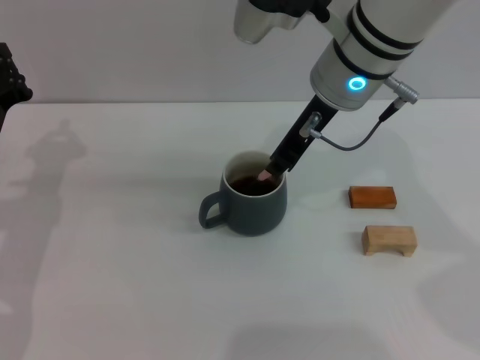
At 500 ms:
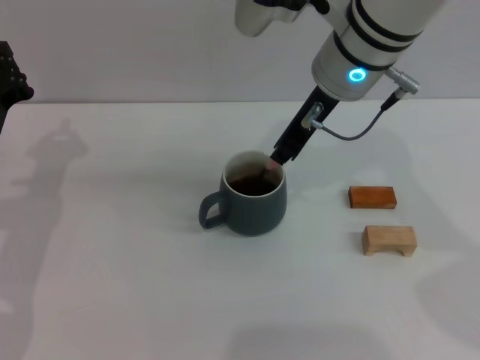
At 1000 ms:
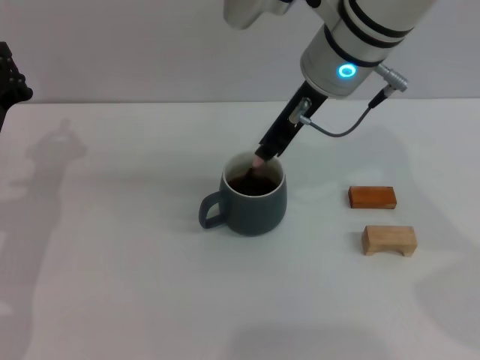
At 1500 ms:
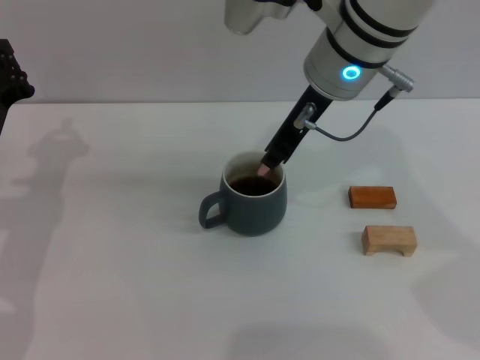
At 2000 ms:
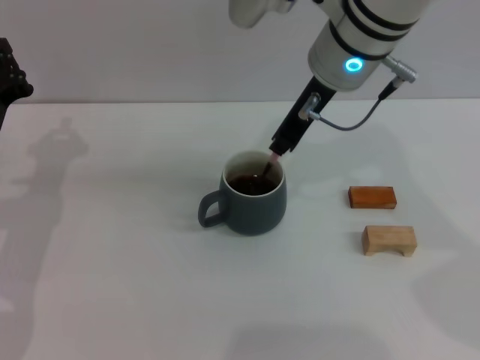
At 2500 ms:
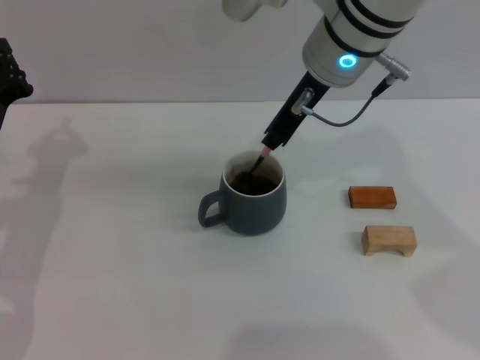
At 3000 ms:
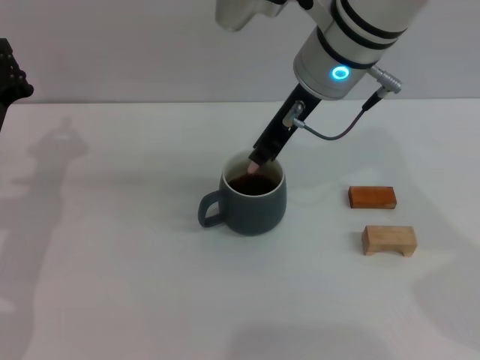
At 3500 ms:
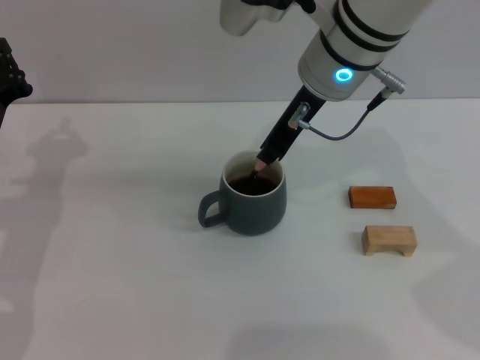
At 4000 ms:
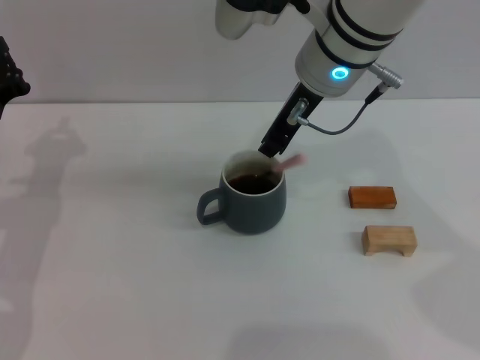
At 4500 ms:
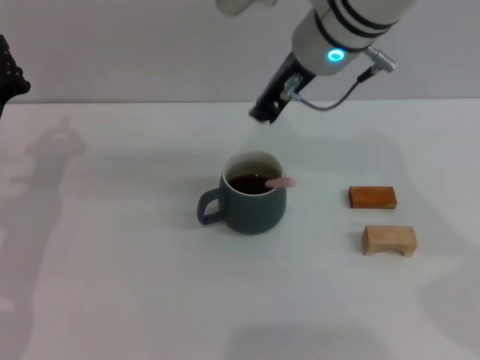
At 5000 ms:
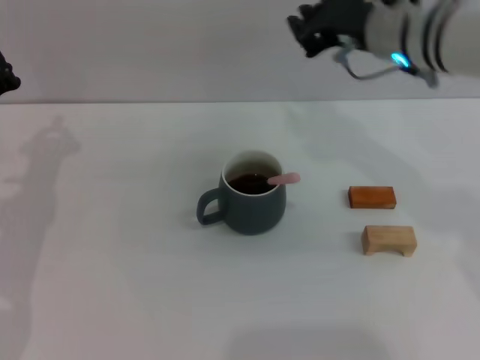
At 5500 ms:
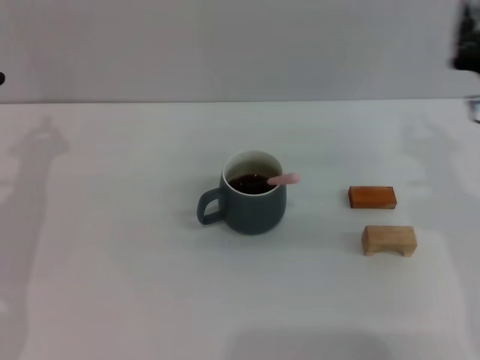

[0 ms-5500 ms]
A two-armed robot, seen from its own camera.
Task of the whole recording: Move the grey cup to the center, lift the pink spoon, stir it three times in the cup, and put the spoon into the cup.
Step, 0 ms to 4000 ms: Stir the coffee in the cup with the right gripper.
0 ms to 2000 ms: The grippers stay close to where they were, moving slightly.
2000 ms to 3500 ms: Both grippers stay about where they are.
3500 ms to 5500 ms: The right gripper shifts about 20 cm to the right, downward and backward.
